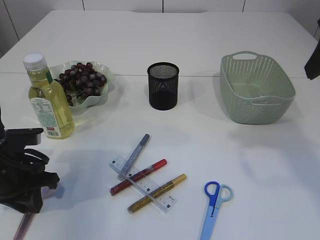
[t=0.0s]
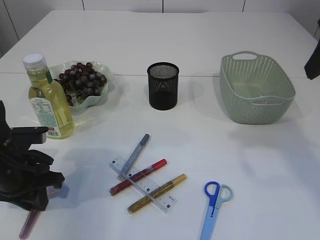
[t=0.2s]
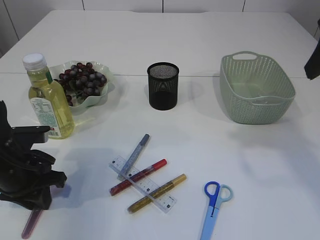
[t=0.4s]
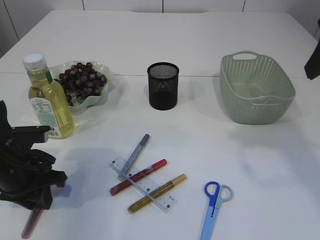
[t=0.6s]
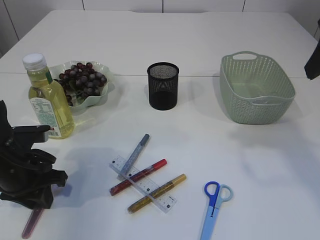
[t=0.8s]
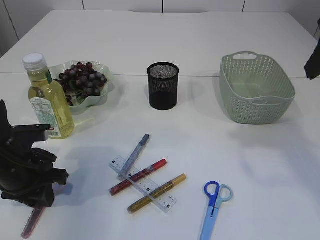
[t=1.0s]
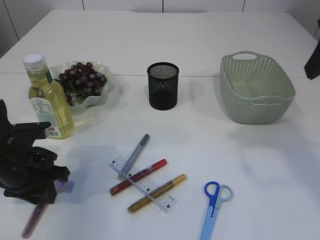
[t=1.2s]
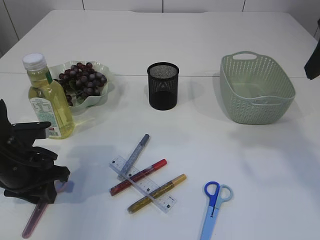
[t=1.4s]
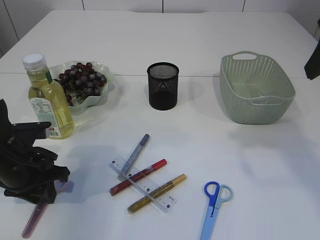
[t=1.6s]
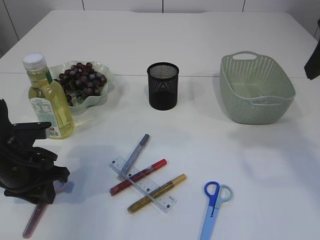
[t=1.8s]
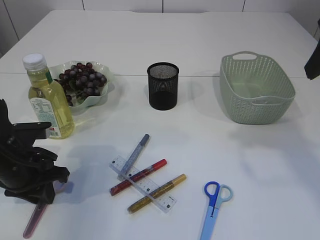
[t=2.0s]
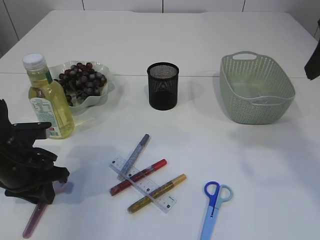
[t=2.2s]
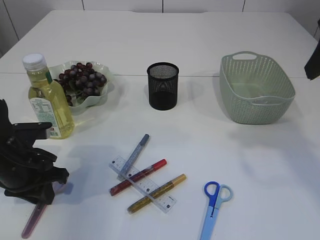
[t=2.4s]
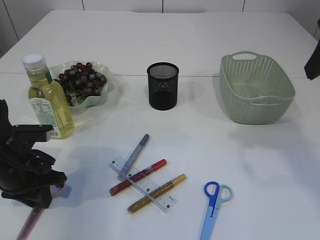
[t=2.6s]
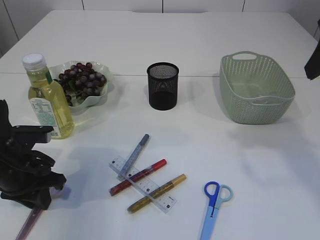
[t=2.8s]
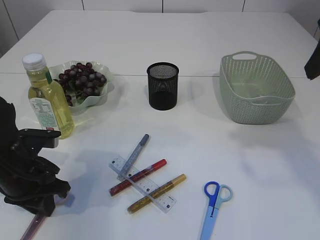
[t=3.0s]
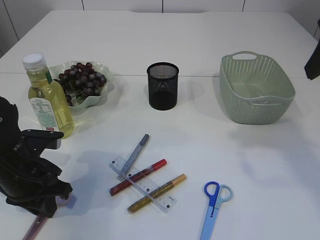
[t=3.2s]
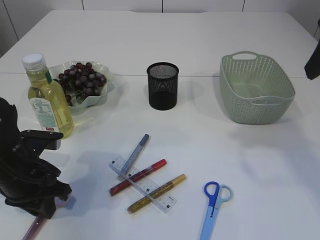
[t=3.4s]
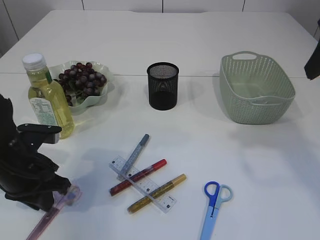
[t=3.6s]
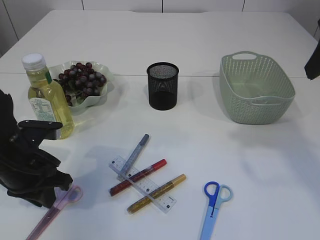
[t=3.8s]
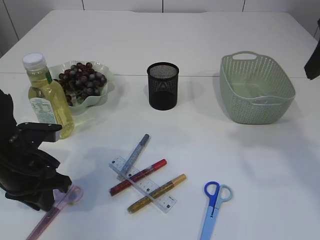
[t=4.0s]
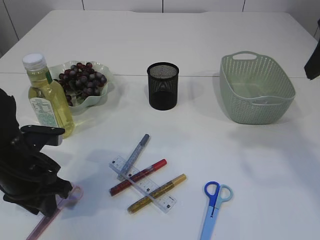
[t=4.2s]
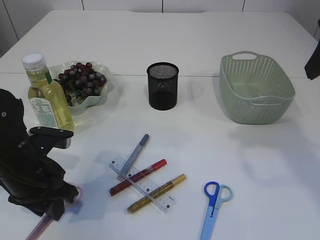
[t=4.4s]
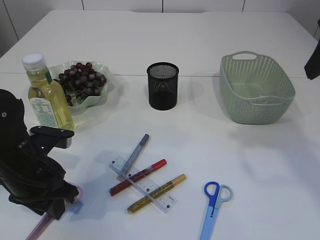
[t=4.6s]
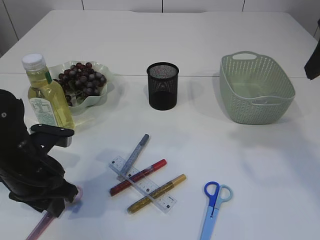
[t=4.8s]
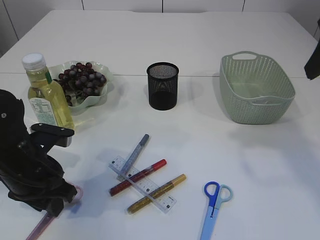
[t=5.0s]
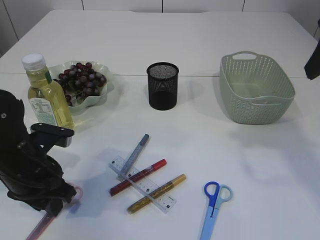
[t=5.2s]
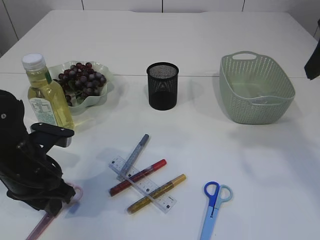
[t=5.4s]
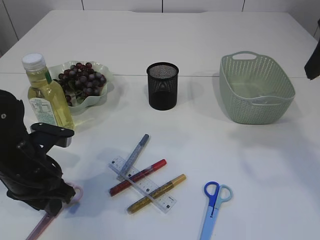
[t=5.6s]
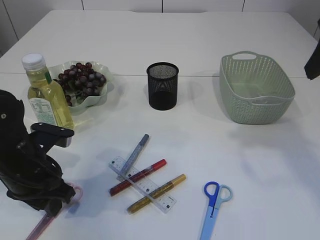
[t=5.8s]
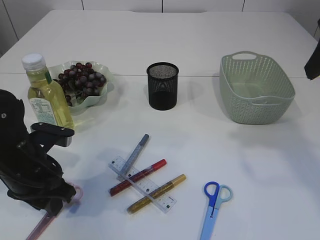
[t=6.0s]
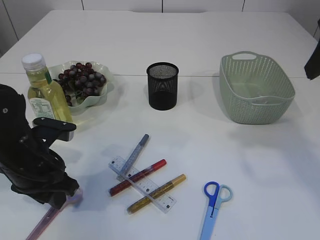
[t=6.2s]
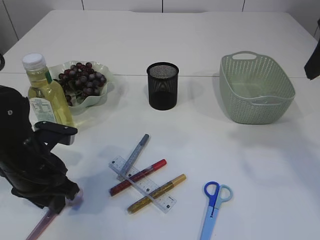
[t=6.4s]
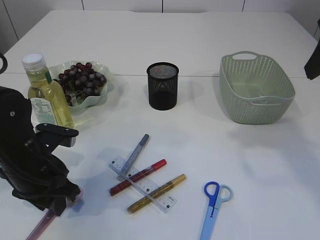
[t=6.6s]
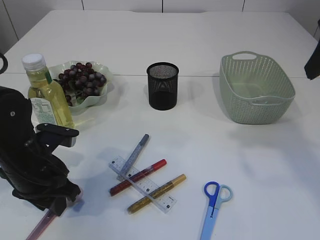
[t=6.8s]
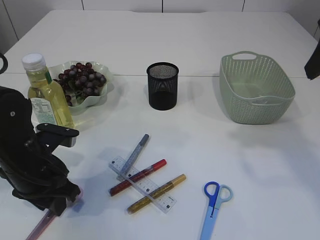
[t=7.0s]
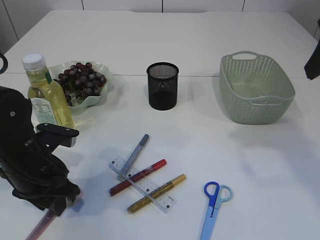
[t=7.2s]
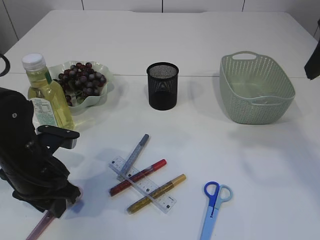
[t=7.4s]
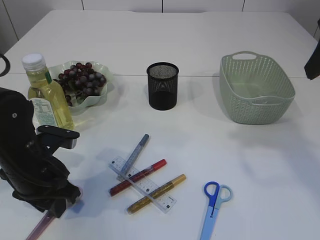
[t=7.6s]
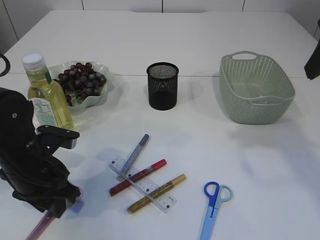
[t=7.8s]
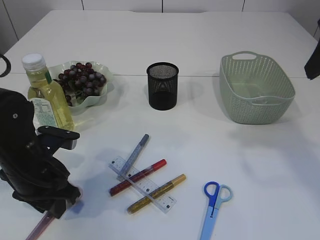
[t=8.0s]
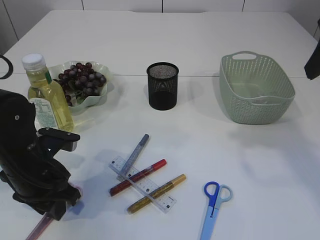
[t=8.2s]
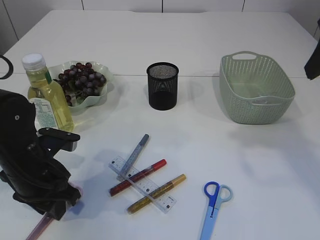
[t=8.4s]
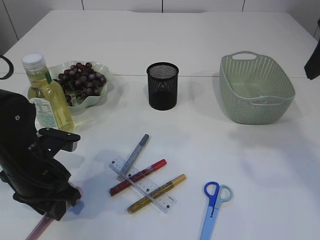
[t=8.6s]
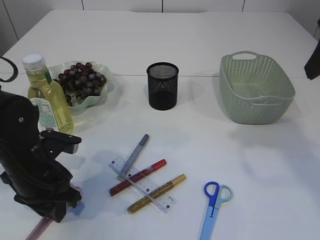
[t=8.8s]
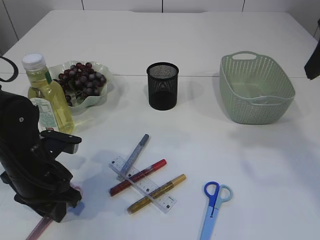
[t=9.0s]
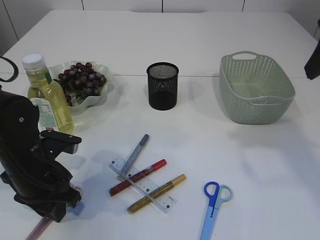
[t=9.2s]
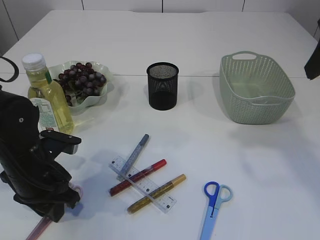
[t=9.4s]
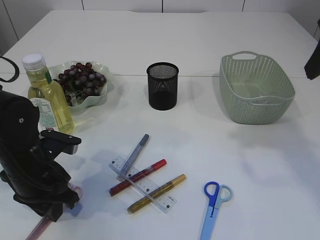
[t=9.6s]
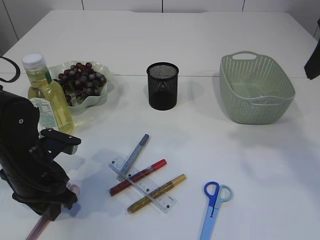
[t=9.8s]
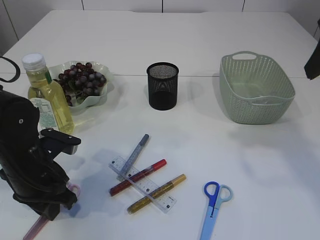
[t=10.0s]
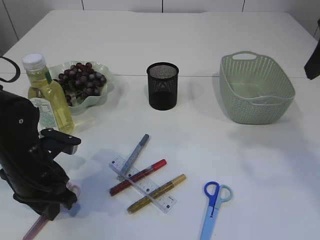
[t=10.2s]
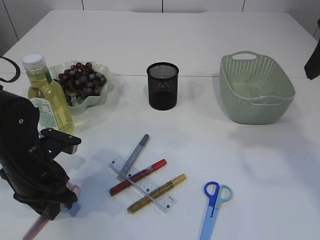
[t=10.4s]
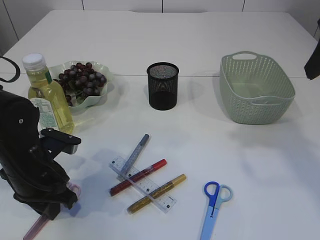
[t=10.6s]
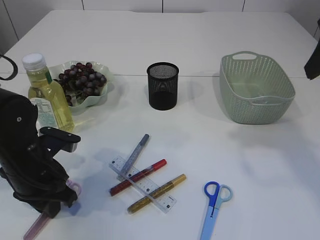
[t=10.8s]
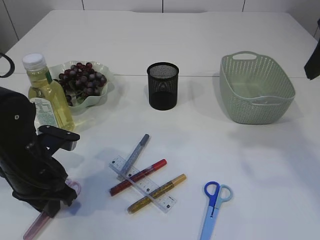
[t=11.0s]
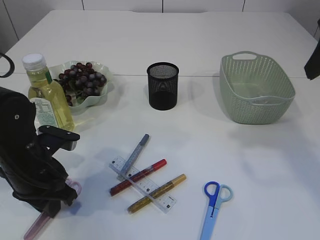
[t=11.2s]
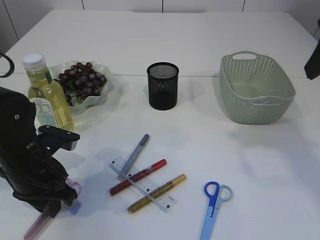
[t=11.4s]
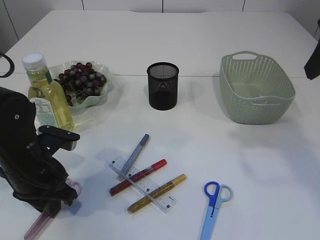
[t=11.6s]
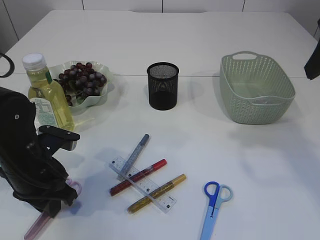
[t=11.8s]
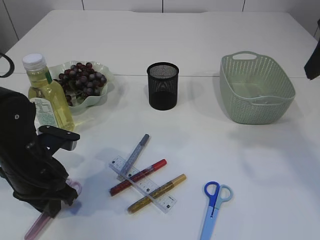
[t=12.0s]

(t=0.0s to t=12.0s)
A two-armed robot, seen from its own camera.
t=0.0s - t=4.4s: The grippers make only small movements.
t=4.4s - t=6.0s: Both grippers stay put.
t=6.0s - t=7.6s: The two grippers keep their place.
t=7.6s - t=12.0s: Both grippers stay put.

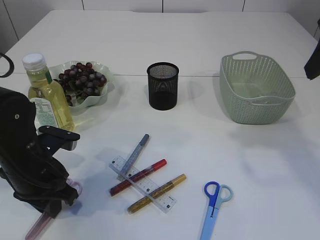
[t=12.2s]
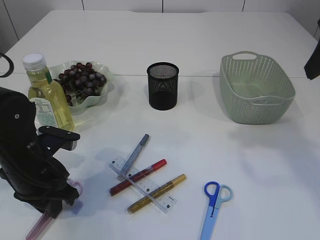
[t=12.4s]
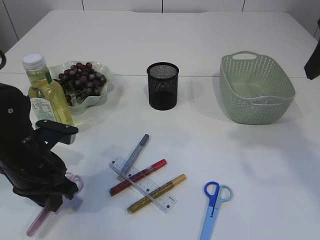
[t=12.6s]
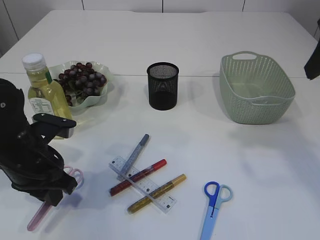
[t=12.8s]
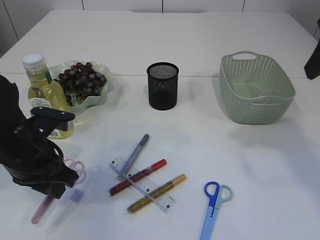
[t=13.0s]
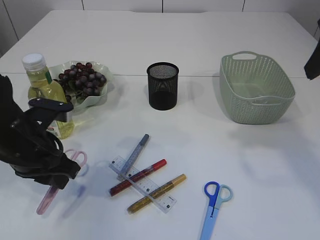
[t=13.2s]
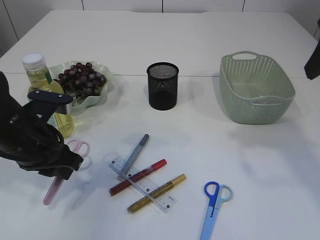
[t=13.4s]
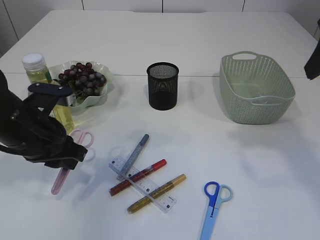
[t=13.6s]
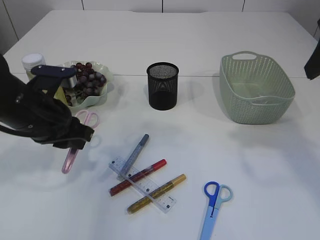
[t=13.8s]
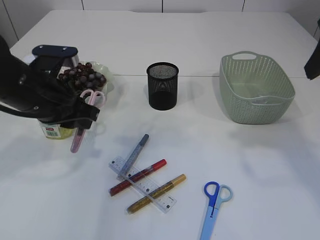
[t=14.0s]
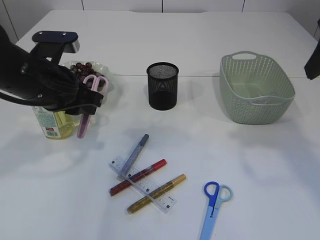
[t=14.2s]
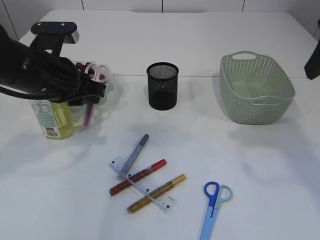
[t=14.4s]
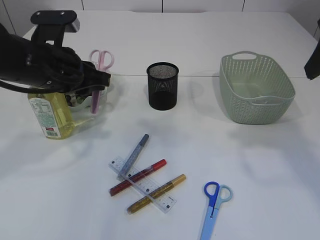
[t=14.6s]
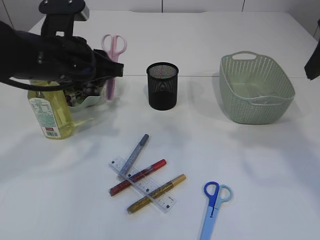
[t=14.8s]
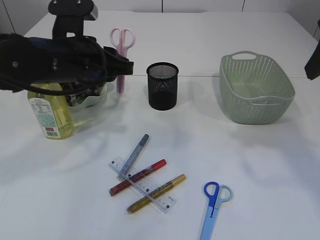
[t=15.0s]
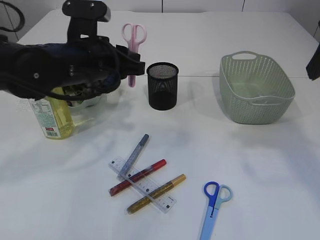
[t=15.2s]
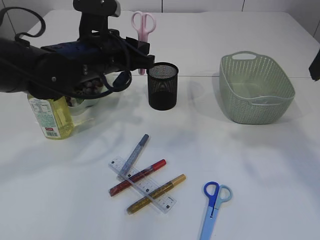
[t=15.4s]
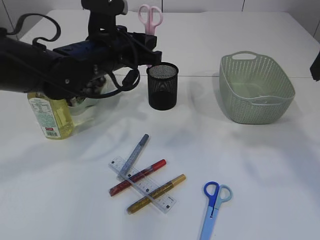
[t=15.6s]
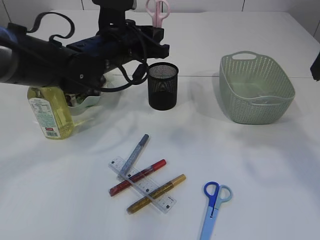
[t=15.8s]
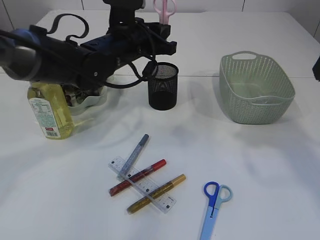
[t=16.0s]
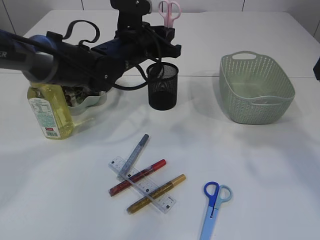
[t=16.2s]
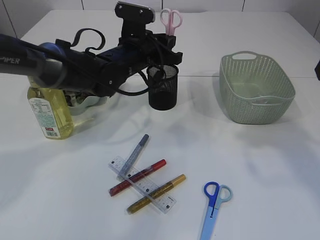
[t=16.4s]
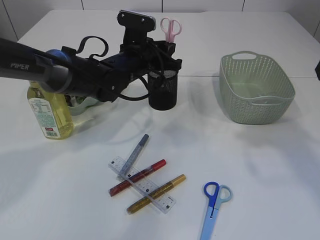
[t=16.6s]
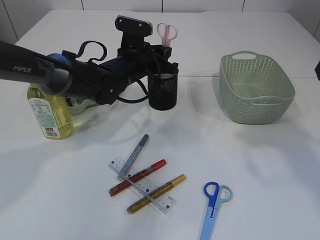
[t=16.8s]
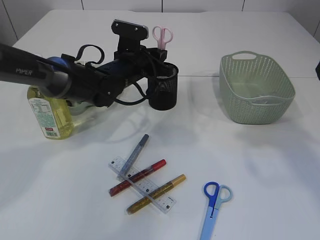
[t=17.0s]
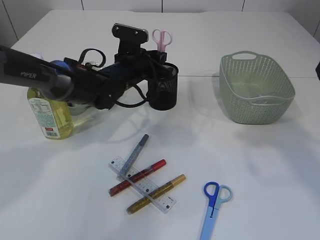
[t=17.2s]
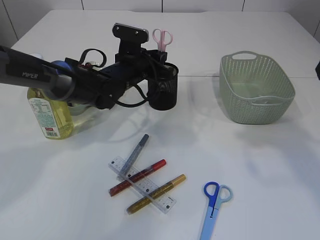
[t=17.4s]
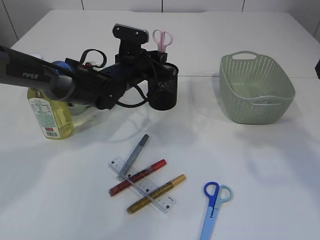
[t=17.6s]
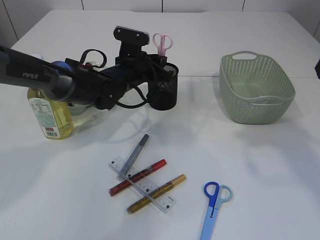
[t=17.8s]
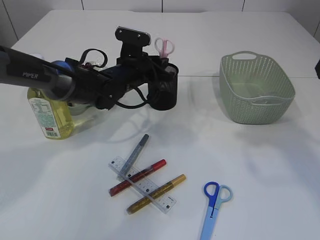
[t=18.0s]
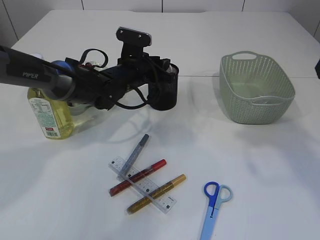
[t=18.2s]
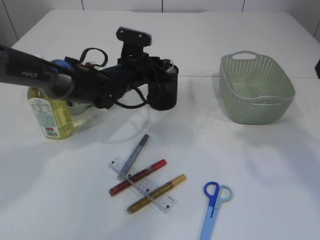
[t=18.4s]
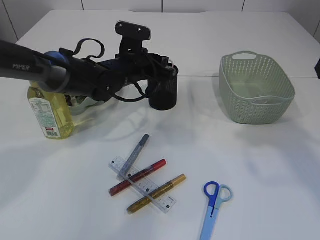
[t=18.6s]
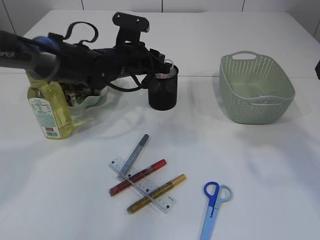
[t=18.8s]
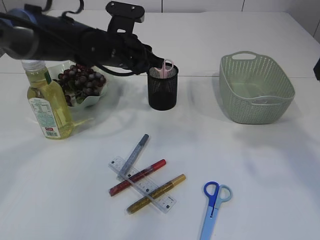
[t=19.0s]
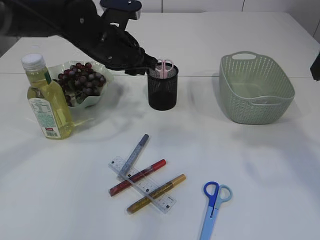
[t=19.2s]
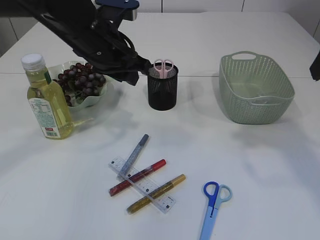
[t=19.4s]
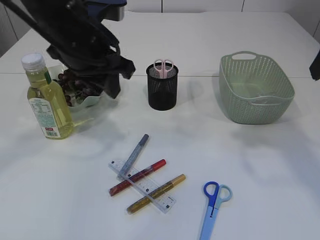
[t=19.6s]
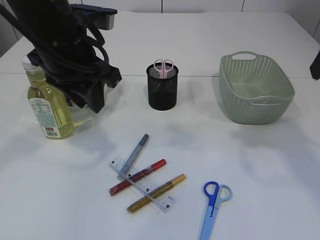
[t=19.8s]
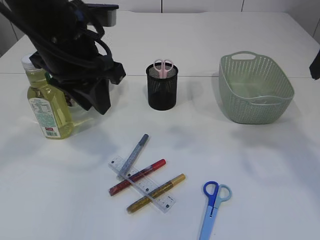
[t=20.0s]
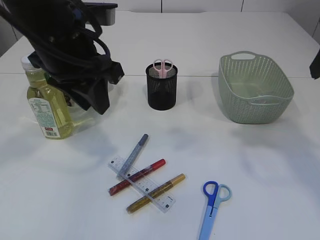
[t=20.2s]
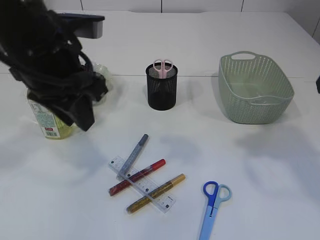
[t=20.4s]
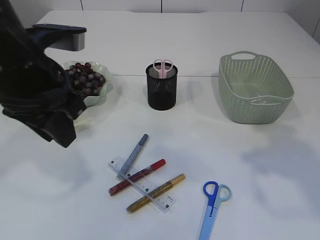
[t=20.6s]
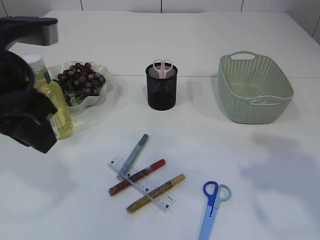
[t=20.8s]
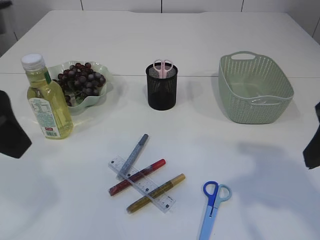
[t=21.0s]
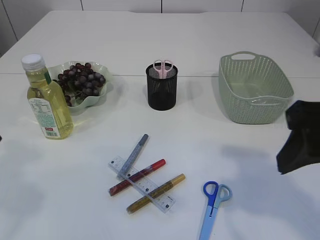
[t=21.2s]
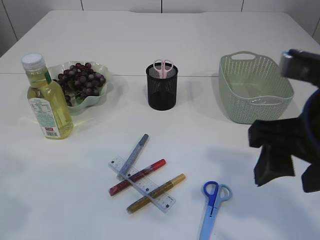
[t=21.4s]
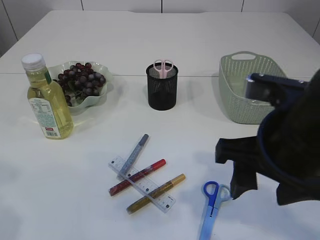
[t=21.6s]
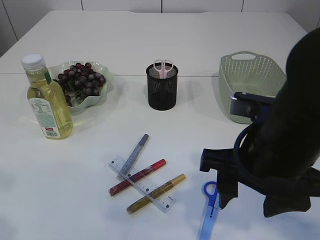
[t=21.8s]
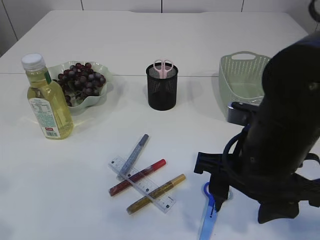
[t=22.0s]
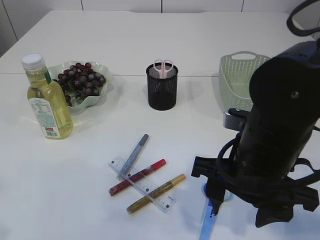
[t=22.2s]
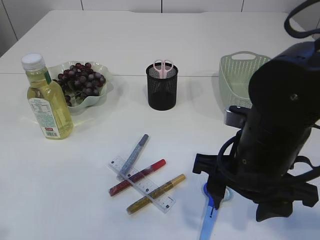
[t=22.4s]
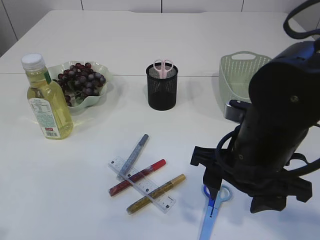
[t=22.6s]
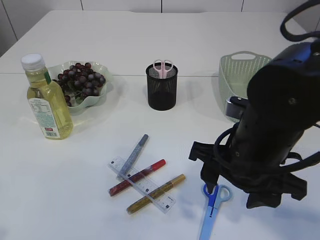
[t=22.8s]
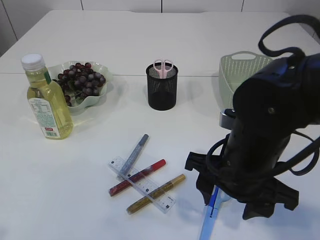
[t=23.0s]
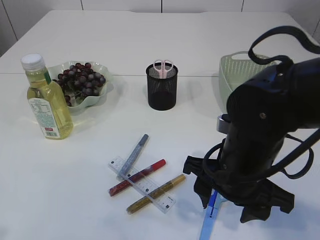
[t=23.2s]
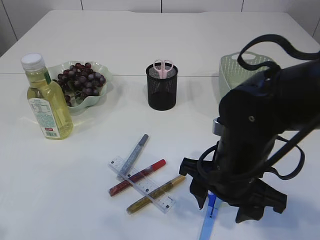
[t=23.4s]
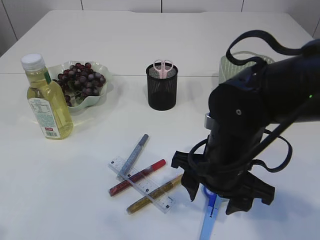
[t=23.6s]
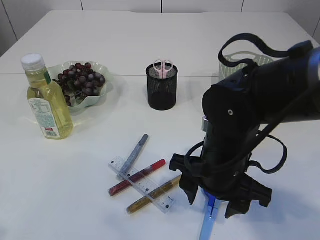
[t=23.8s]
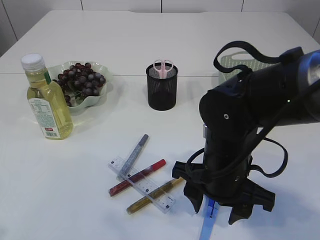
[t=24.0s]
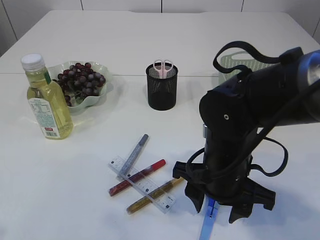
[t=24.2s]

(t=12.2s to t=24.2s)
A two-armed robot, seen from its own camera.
Step, t=14.0s - t=19.4s: Place the pink scissors into the pen holder.
t=12.2s - t=13.8s: The left gripper is displaced upward by approximately 5 cm.
t=13.8s - t=15.2s: The left gripper travels to the right and forward by some 10 cm.
t=15.2s - t=16.6s: The left gripper goes about 15 cm forward, to the right and downward.
t=16.6s - t=18.2s: The grippers move only a little.
t=18.2s - t=19.8s: The left gripper is displaced upward and backward by approximately 20 cm.
t=19.8s - t=21.2s: The right gripper shifts approximately 10 cm backward and to the left. Meanwhile the left gripper goes some 20 cm backward, to the left and upward.
t=21.2s - t=22.6s: The right gripper is displaced downward and to the left by some 15 cm; the left gripper is displaced backward by about 5 cm.
t=22.6s - t=24.2s: The right gripper travels downward by about 5 cm.
